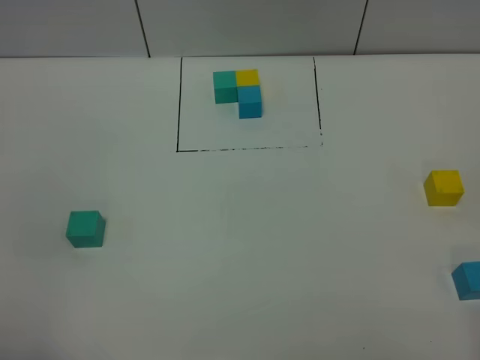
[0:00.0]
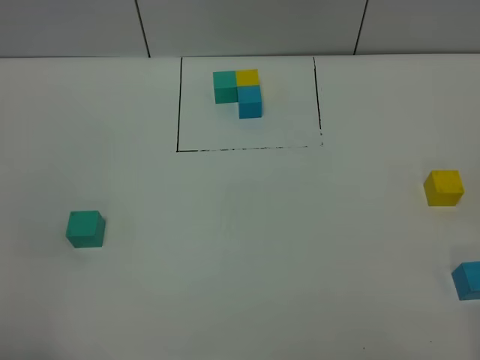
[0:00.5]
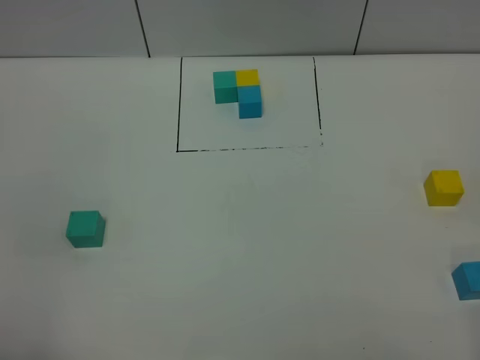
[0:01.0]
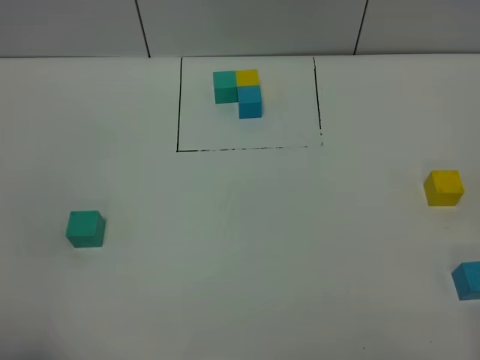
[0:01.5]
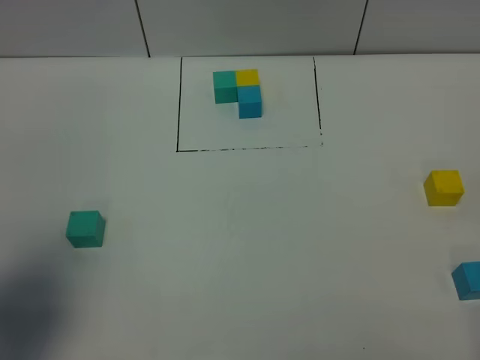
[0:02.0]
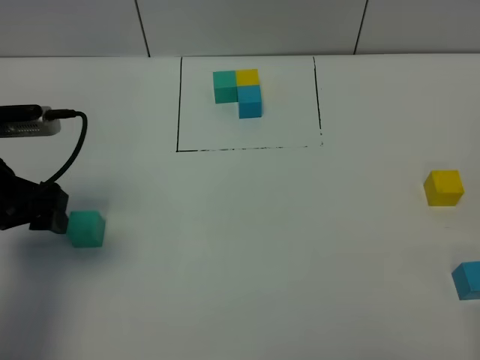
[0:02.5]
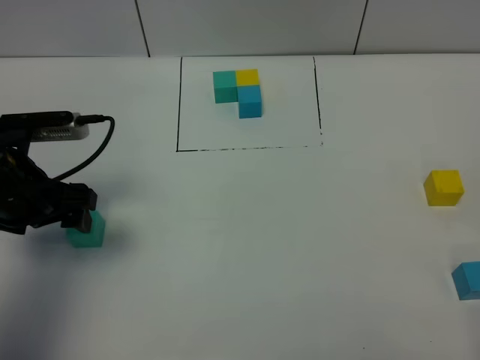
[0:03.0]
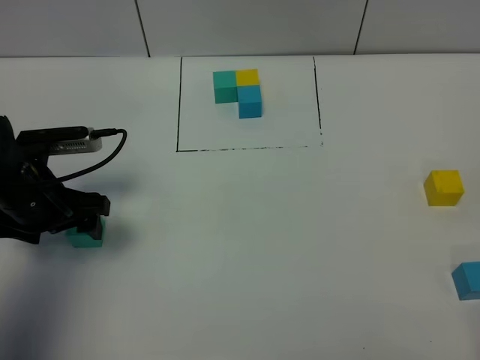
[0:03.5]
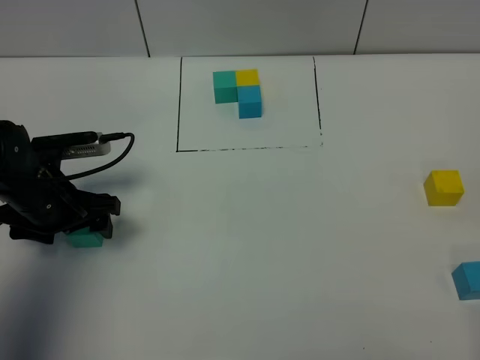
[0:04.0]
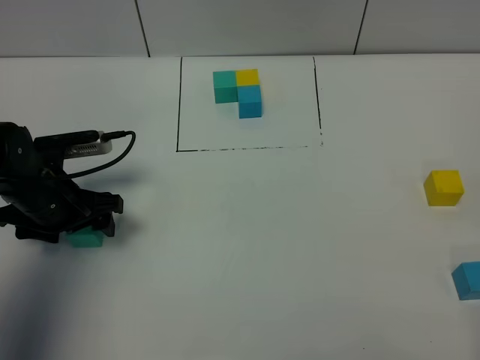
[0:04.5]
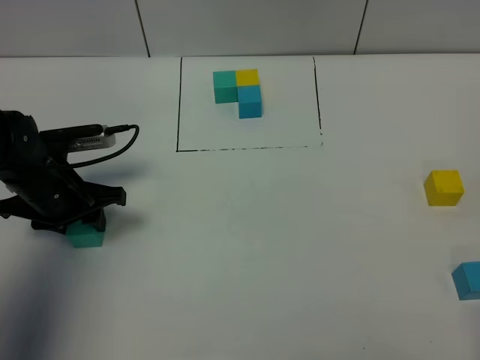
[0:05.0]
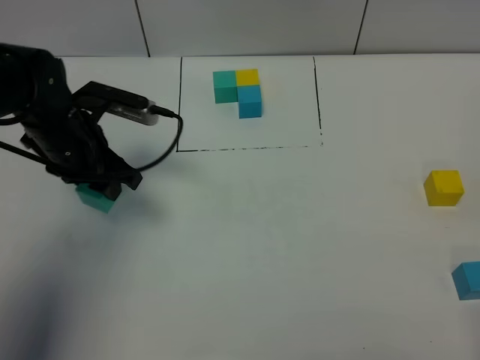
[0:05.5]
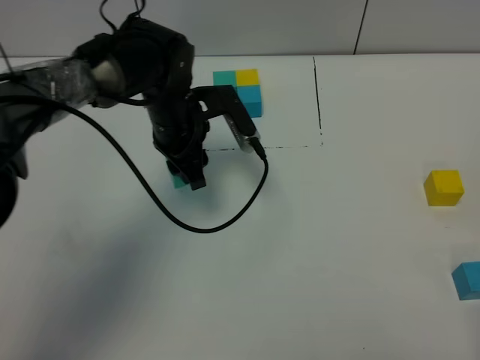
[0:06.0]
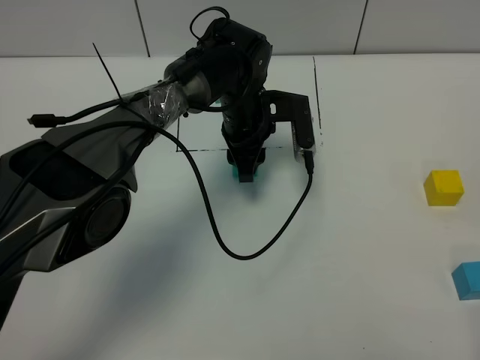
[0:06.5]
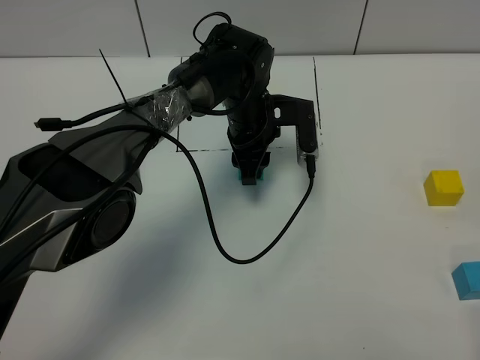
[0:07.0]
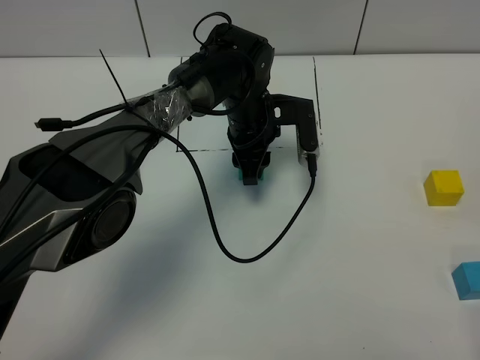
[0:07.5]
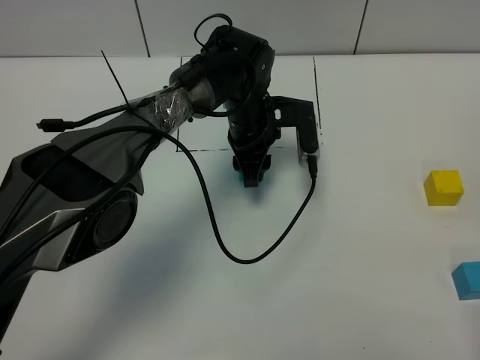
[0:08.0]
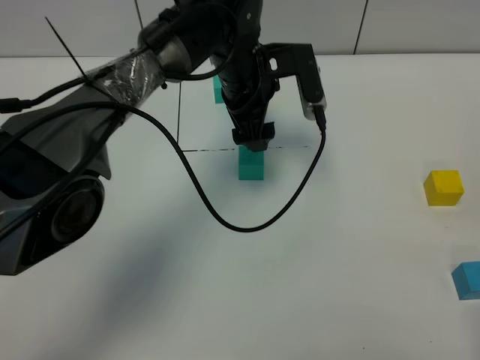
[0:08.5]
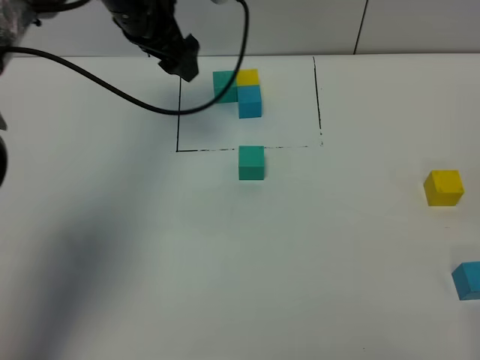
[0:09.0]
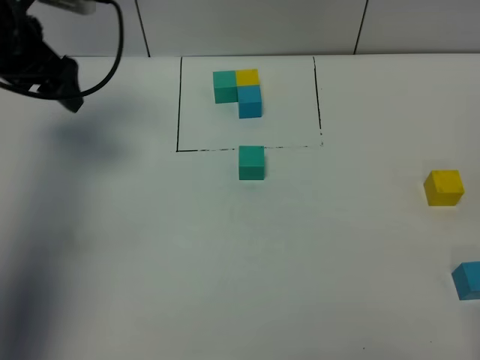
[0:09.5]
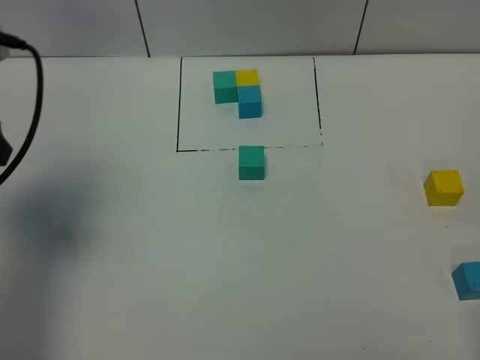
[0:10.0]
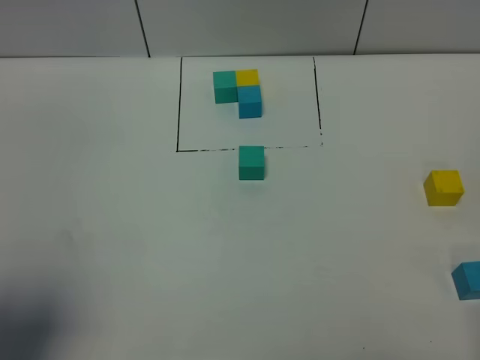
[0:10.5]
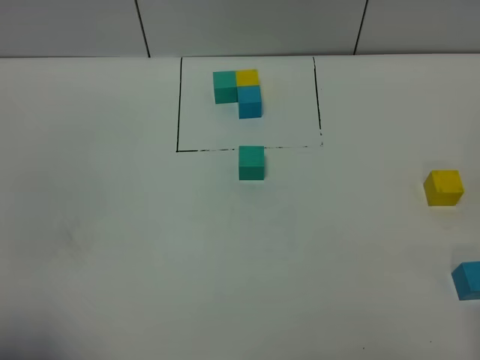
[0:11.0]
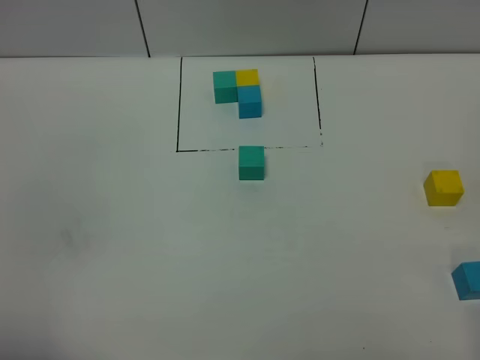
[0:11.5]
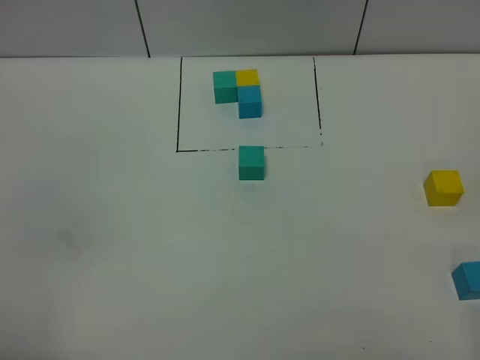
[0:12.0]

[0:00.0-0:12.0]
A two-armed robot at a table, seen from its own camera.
Task of the whole recording: According to the building block template in front, assemble the scattered blocks together.
Step, 0:00.0 to 0:08.0: Put the green build block in the center of the table.
0:00.0 to 0:02.0: The left gripper heads forward, covering about 15 cm.
0:02.0 to 0:04.0: The left gripper is displaced downward and forward by about 20 cm.
0:04.0 to 0:06.0: The left gripper travels to the right and forward by roughly 20 cm, and closes its fingers.
0:06.0 to 0:08.0: The left gripper goes roughly 10 cm to the right.
0:08.0 to 0:10.0: The left gripper travels to the left, upward and backward by roughly 40 cm, and opens its fingers.
0:10.0 to 0:12.0: The left gripper heads backward, covering about 25 cm.

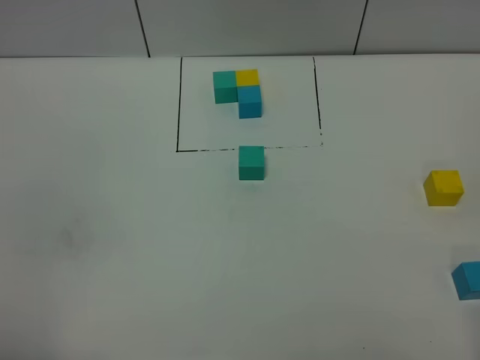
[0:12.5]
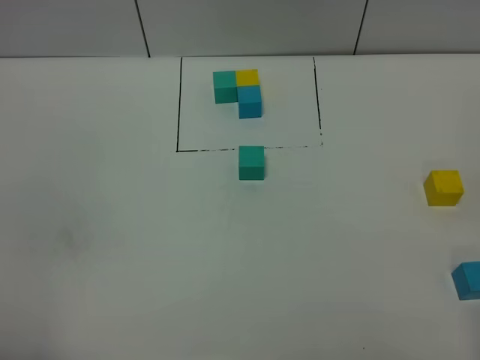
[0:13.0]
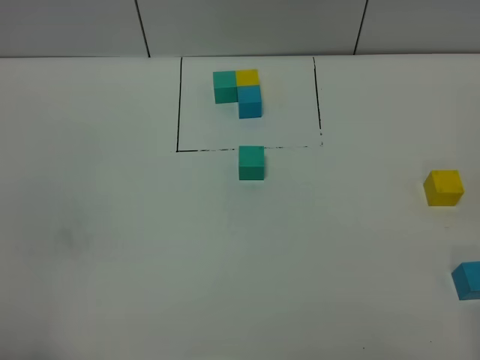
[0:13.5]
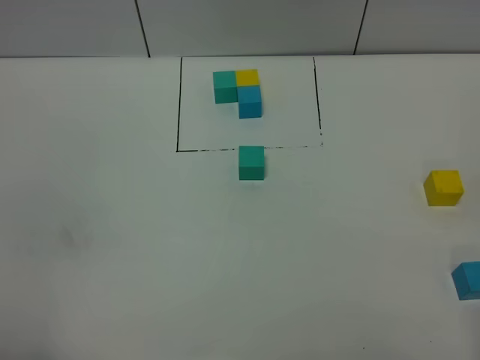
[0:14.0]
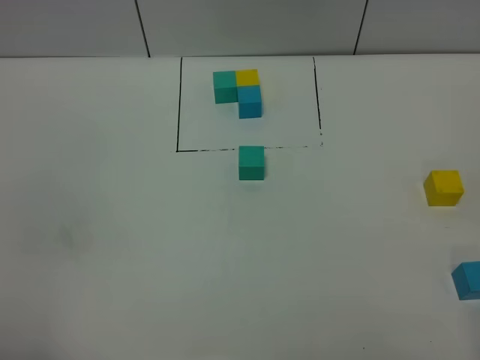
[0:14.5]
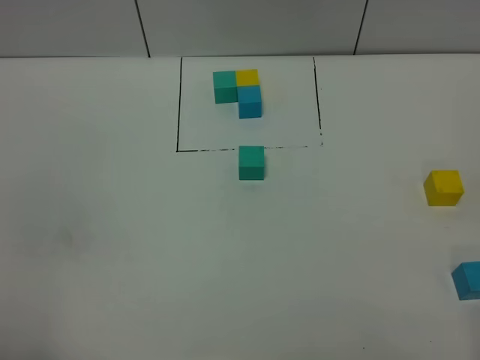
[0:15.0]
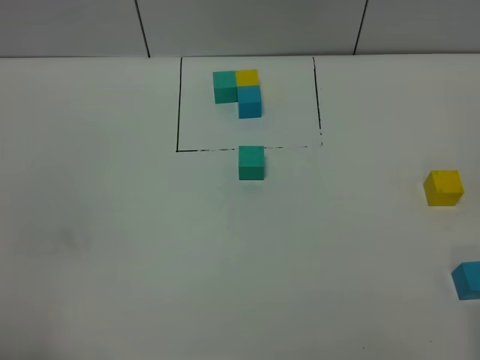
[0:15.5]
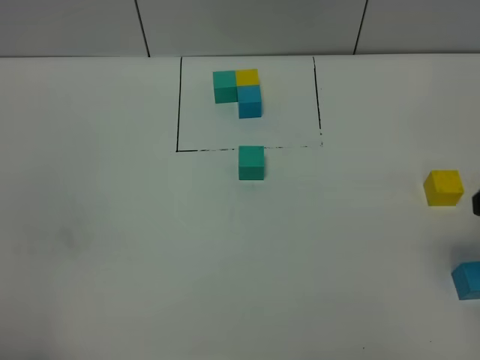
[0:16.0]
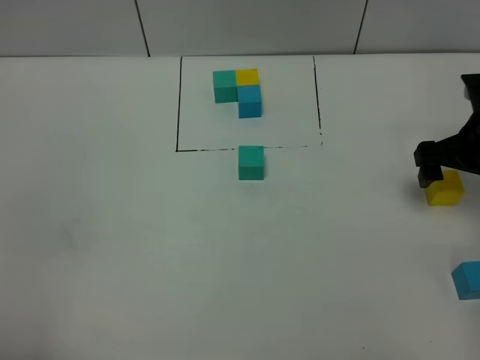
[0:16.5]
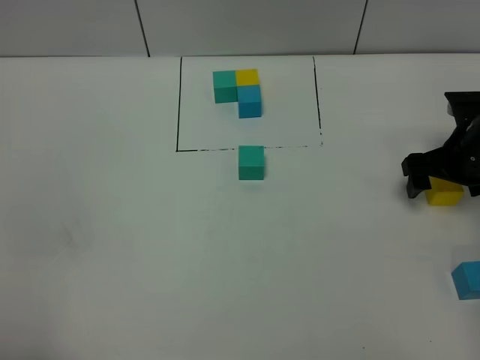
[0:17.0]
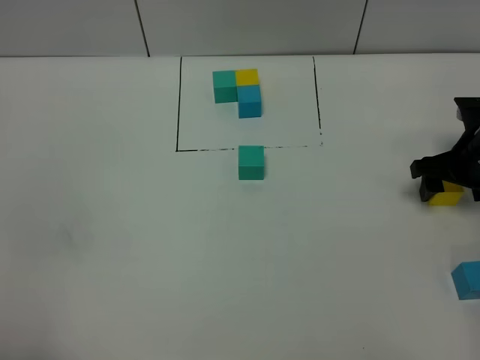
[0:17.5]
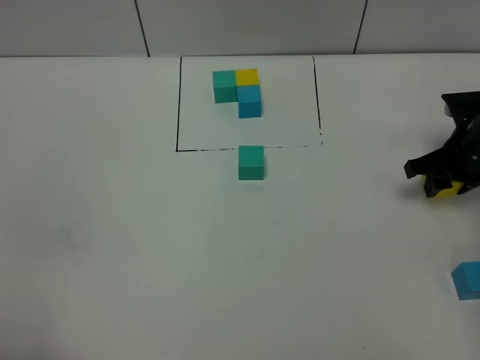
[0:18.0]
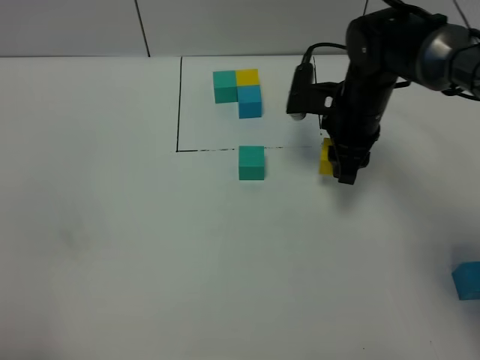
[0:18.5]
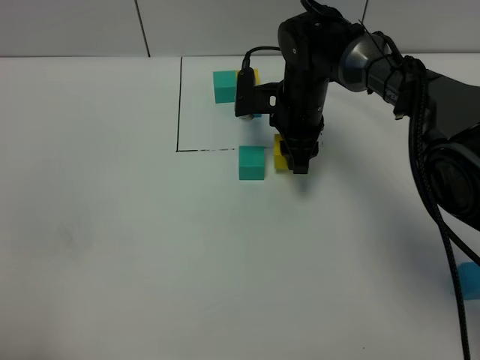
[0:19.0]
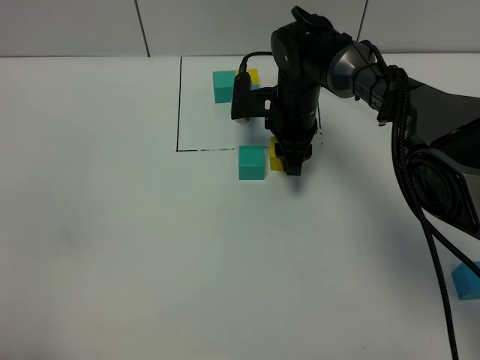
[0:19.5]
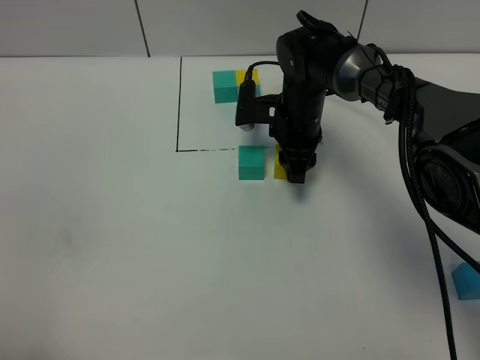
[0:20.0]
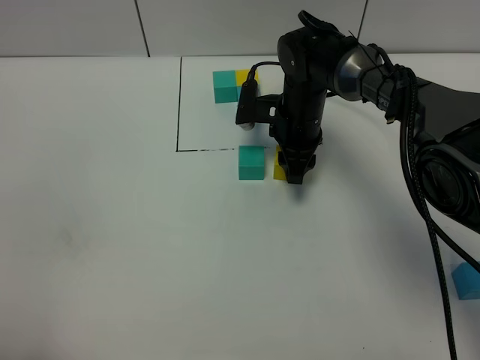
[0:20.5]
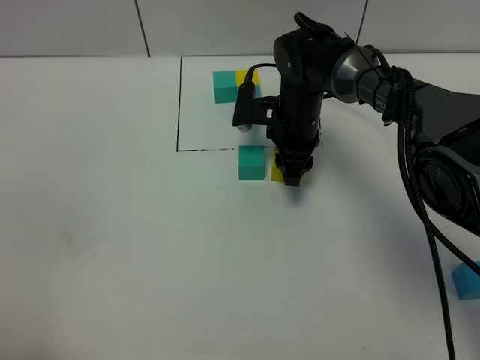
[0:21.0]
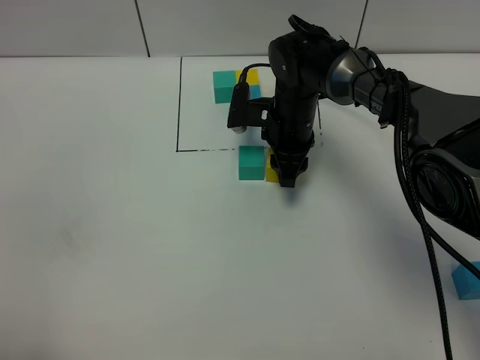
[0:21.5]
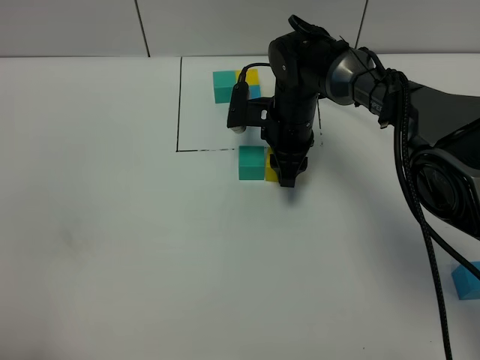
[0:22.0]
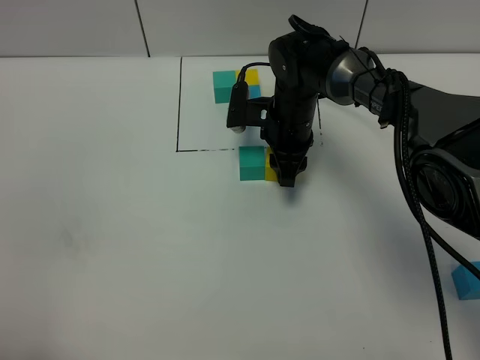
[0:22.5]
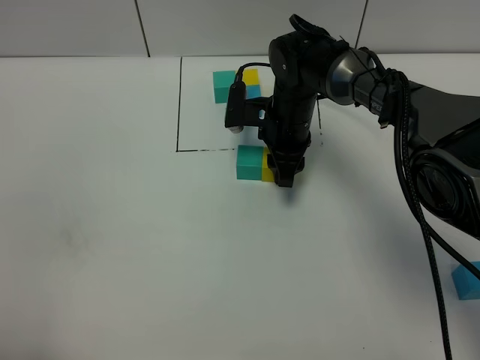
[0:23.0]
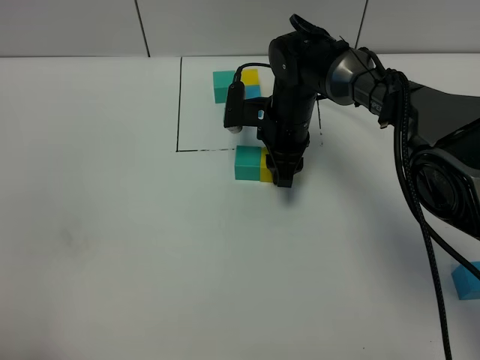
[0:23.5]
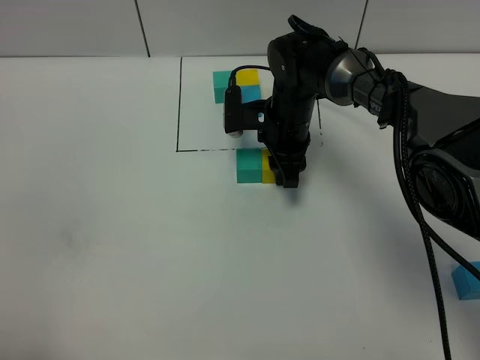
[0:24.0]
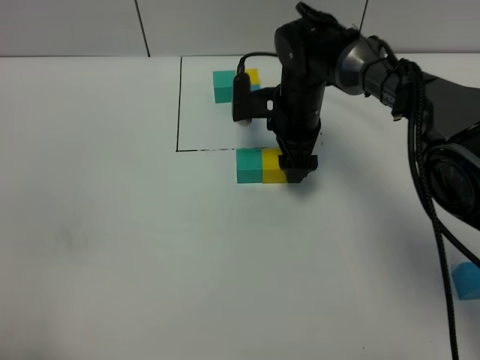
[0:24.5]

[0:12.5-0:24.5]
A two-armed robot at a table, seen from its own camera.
Task of the whole recording: According to the building block template in front, assemble the scattered blocks together.
Step, 0:12.5 to 0:22.5: Put the yellow build block on the right of the green build block.
0:14.5 to 0:16.5: The right gripper shifts roughly 35 cm forward, and opens.
0:16.5 to 0:18.5: The right gripper moves to the left and forward, roughly 15 cm, and closes up.
0:18.5 to 0:20.5: The right gripper is displaced to the left by some 5 cm.
0:20.5 to 0:22.5: The two grippers keep their place.
0:22.5 to 0:24.5: The right gripper opens up.

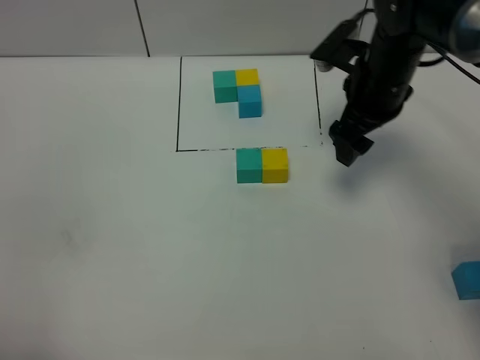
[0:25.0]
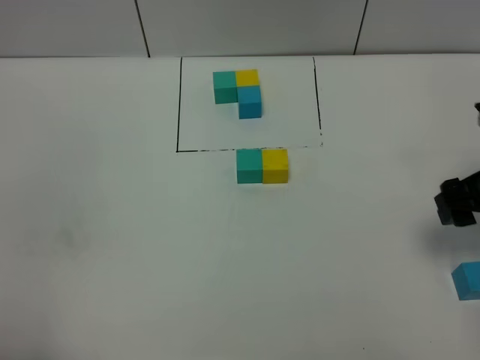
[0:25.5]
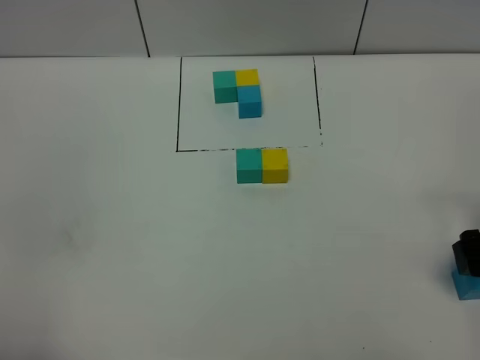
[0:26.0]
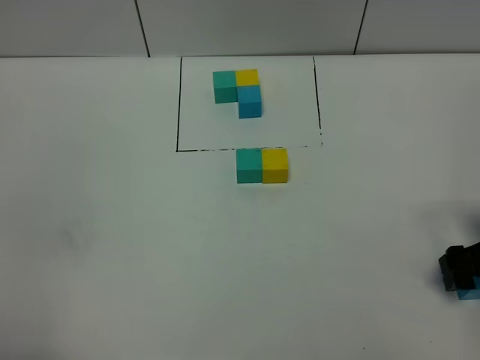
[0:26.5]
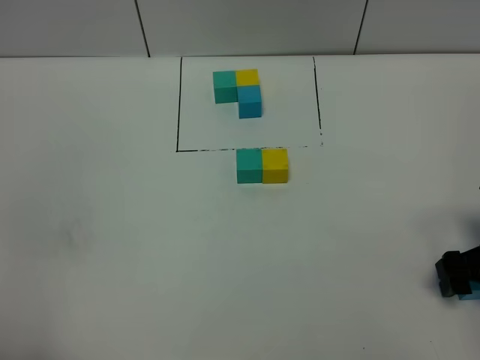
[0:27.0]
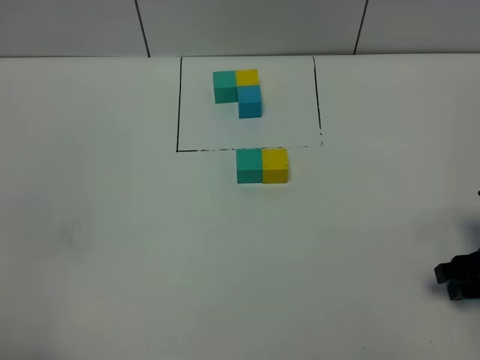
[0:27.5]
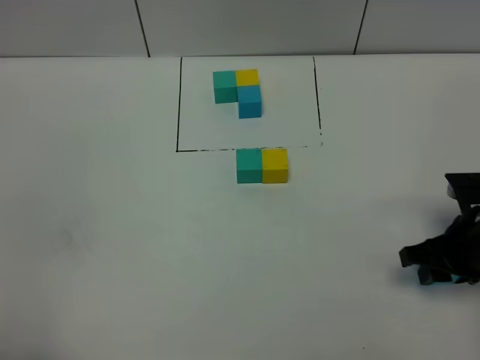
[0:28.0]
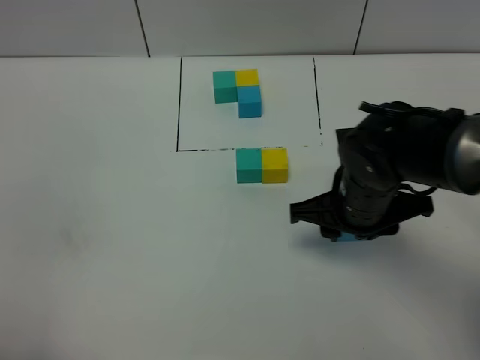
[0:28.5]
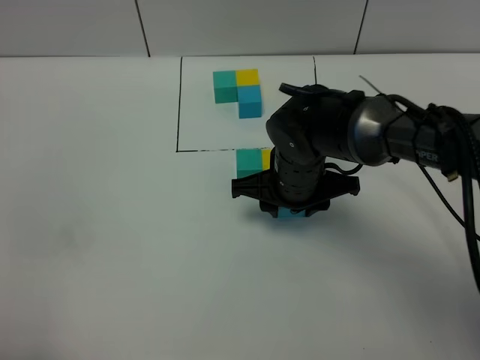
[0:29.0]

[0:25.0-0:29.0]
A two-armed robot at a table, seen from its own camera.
Task of the whole recording: According to the building block template in front, assemble the scattered blocks together.
0:25.0 to 0:27.0: The right gripper moves backward, to the right and downward, some 25 cm.
0:27.0 to 0:29.0: The right gripper goes roughly 30 cm to the left and forward, and closes up.
